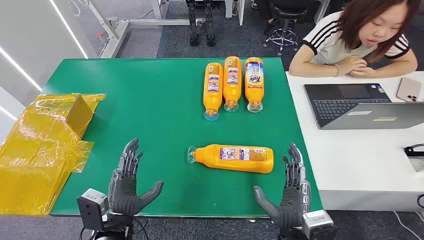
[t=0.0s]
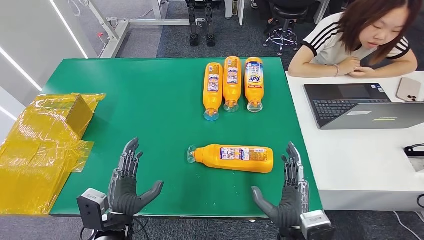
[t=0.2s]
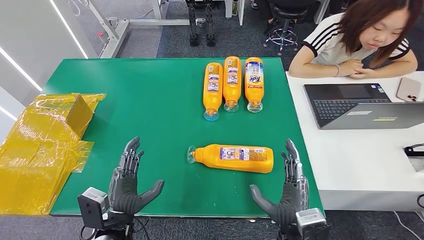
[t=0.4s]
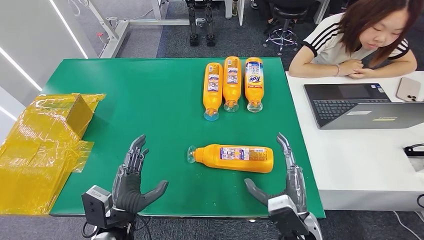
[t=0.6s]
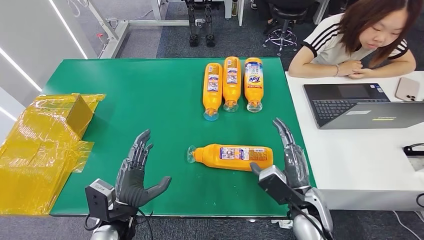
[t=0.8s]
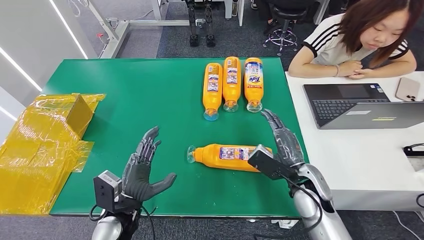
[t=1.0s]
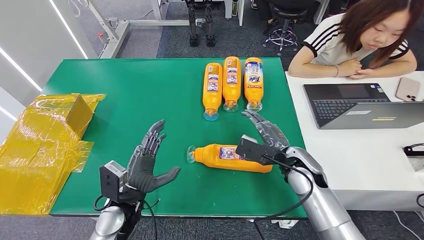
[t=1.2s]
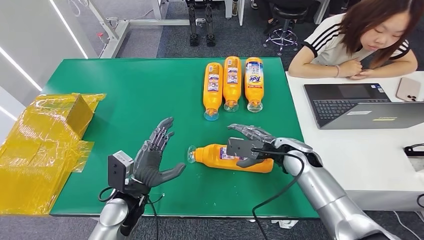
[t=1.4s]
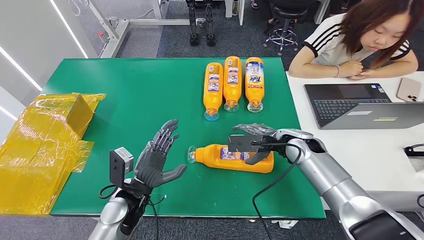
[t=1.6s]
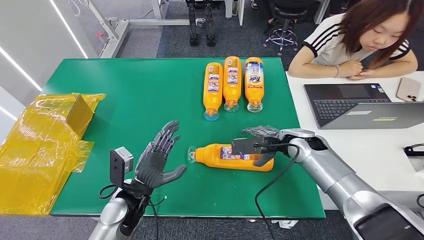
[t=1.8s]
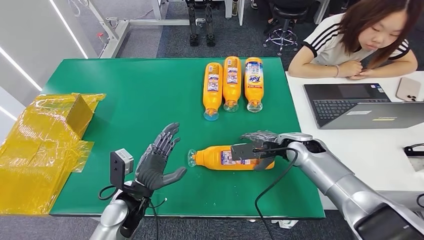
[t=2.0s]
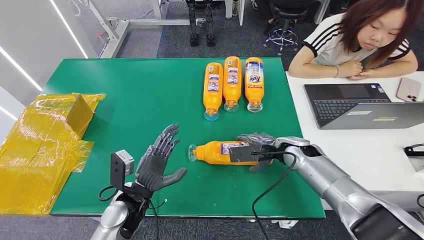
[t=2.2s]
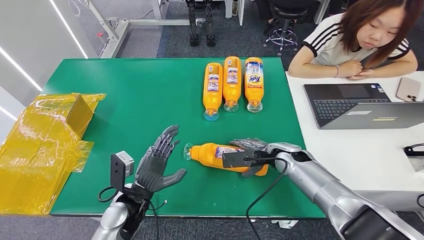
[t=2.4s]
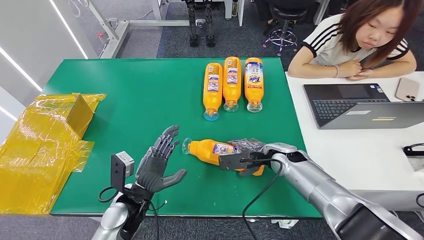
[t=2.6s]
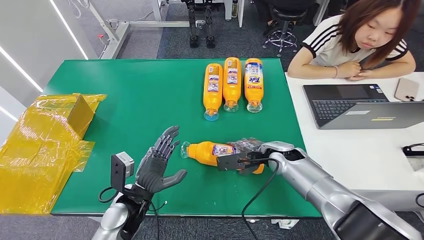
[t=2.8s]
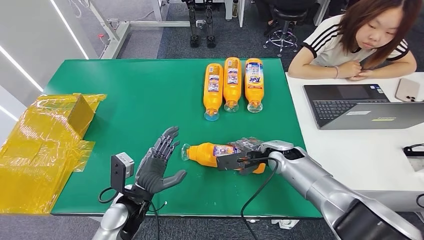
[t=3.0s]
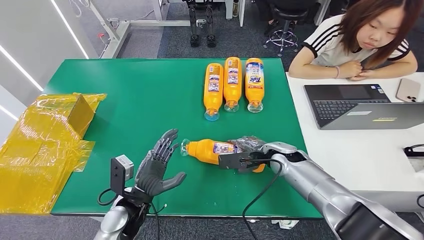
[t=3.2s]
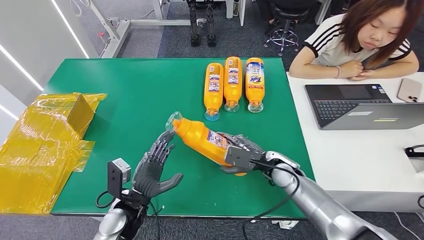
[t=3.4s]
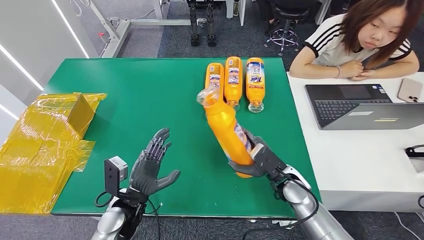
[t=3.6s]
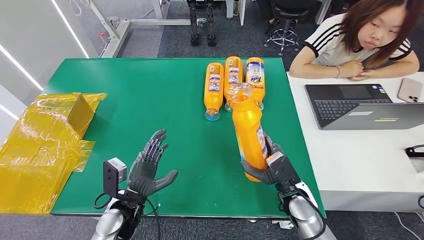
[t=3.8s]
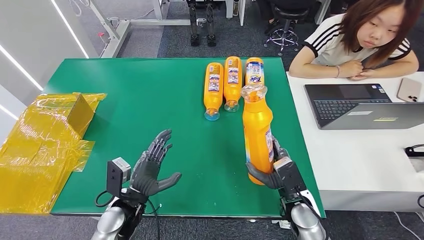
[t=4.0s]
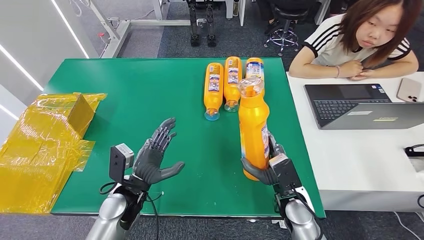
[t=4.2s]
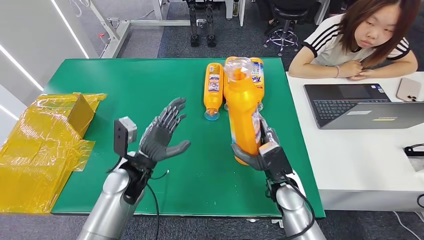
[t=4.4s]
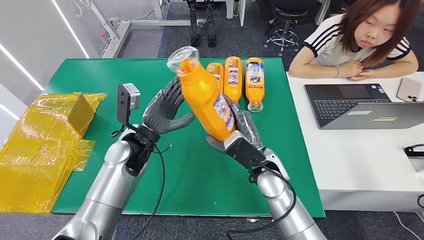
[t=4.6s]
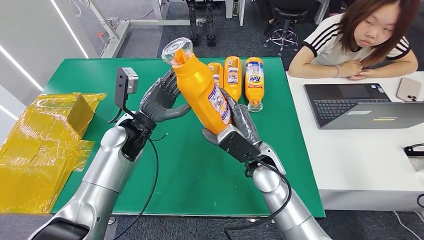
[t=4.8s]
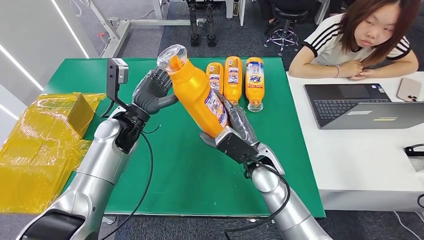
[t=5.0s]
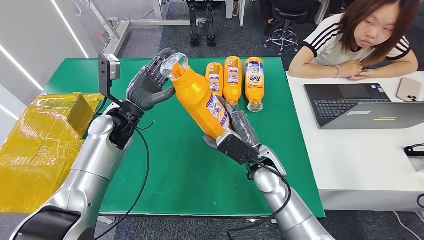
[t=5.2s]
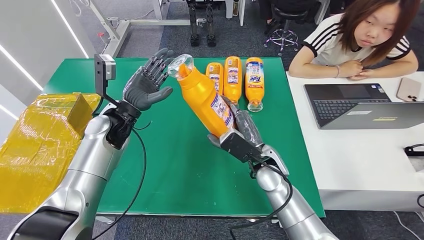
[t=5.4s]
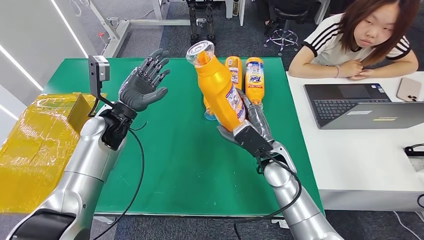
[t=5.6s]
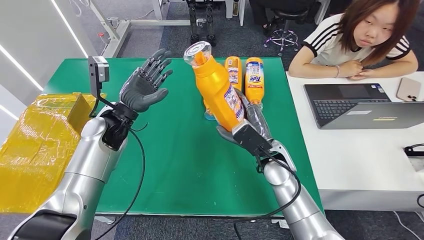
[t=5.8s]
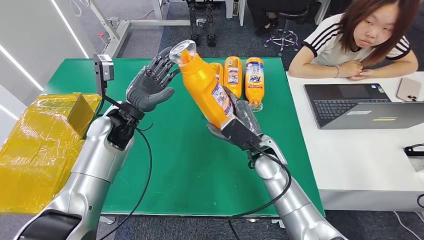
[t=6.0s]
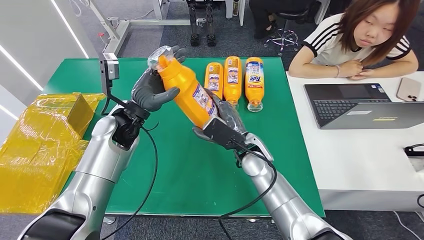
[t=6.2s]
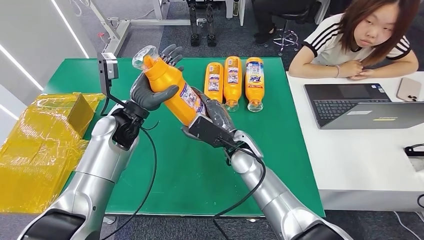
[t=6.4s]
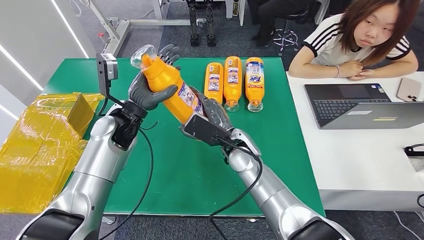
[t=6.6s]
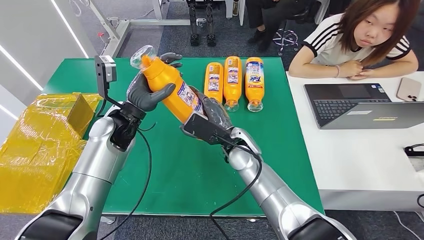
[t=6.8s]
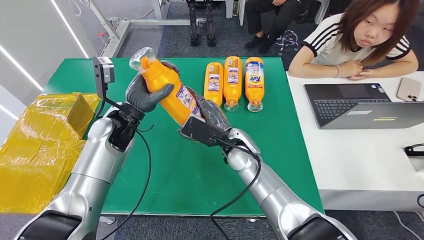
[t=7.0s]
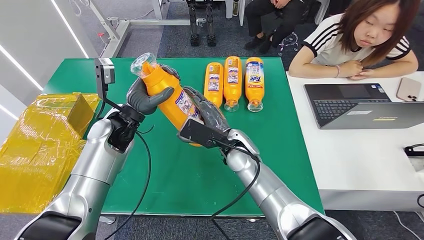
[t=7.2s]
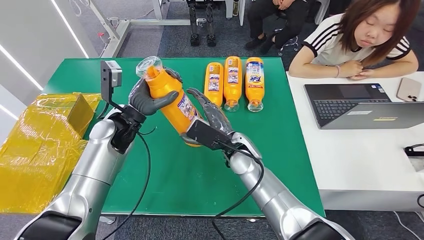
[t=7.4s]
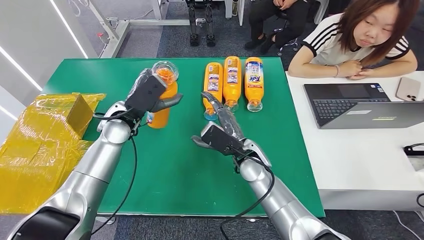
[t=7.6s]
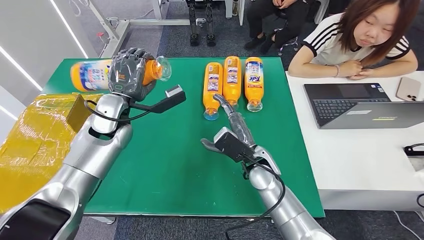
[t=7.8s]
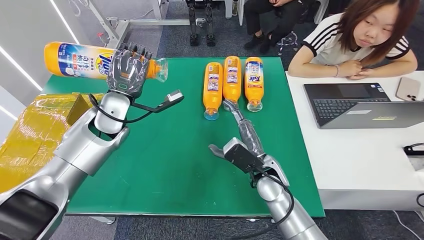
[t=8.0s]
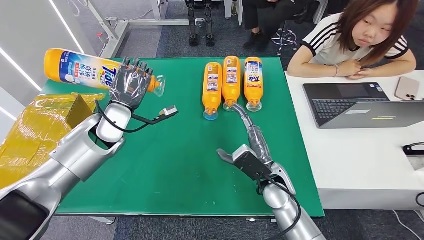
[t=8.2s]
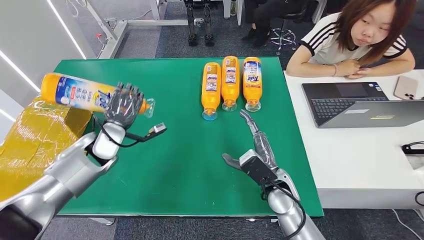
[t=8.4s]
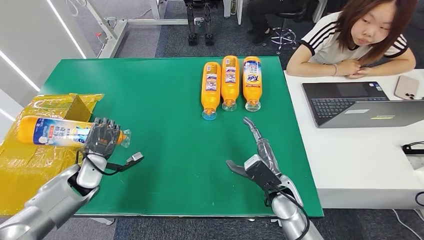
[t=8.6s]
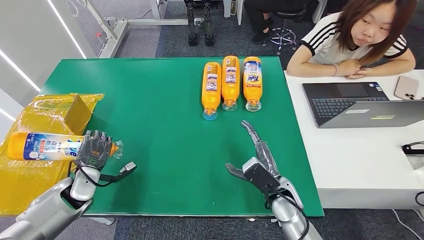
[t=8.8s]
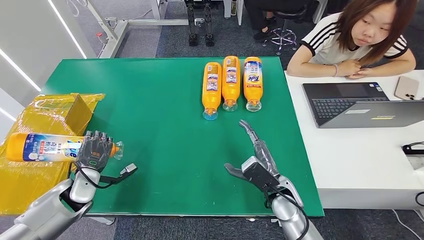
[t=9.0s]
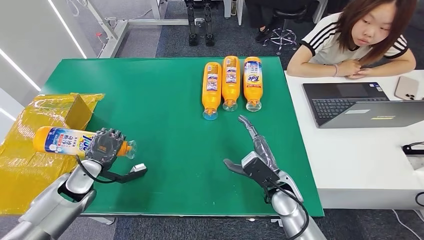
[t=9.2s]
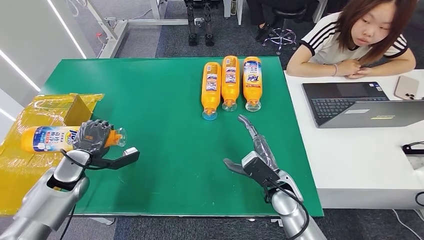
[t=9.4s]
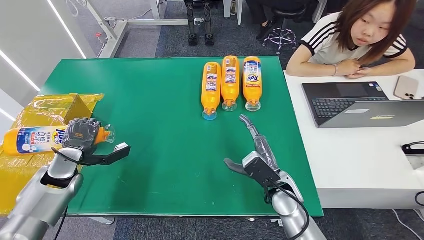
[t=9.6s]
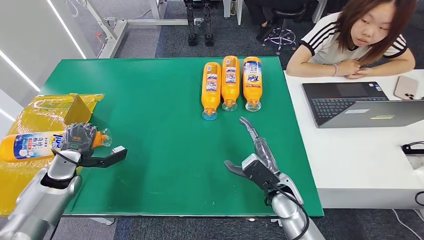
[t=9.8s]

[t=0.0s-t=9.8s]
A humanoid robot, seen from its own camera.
Step, t=0.0s to t=3.8s: Pick up the bottle from the table.
t=1.4s to t=2.8s: The right hand moves some 5 cm.
t=2.8s to t=4.2s: The right hand shifts some 10 cm backward.
t=8.4s to t=9.8s: The left hand moves to the left and downward, some 15 cm.

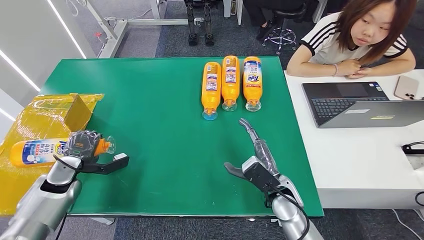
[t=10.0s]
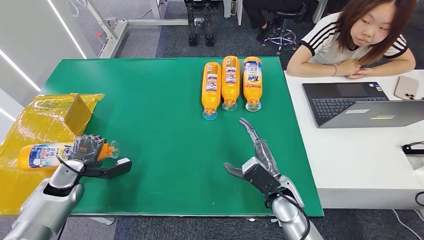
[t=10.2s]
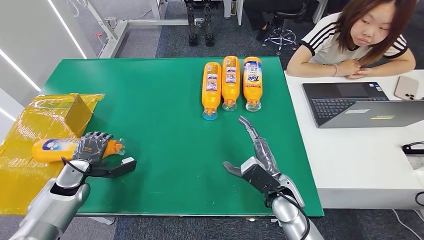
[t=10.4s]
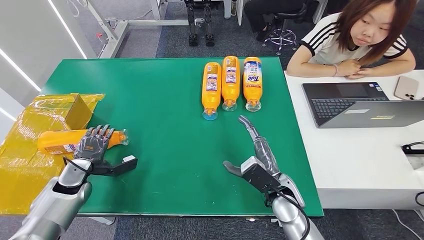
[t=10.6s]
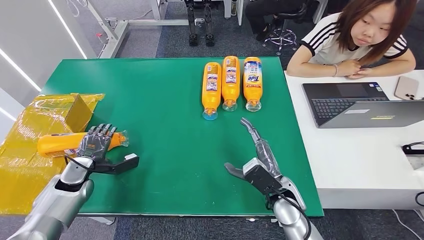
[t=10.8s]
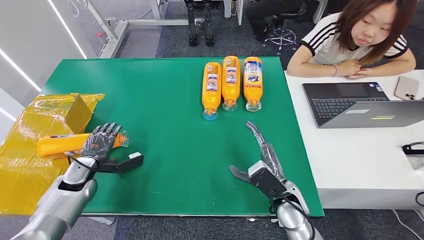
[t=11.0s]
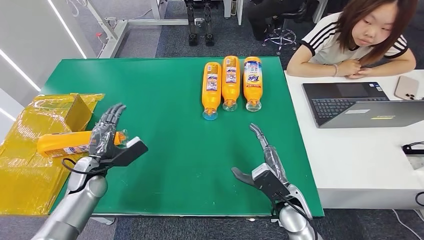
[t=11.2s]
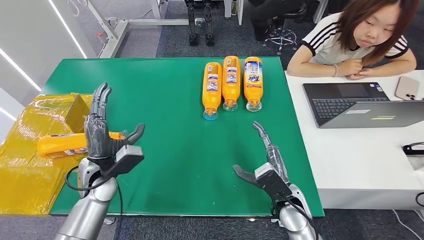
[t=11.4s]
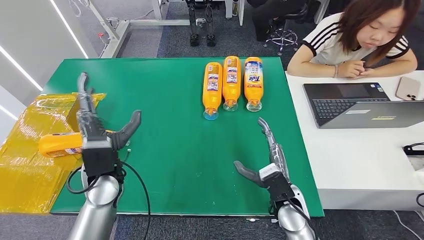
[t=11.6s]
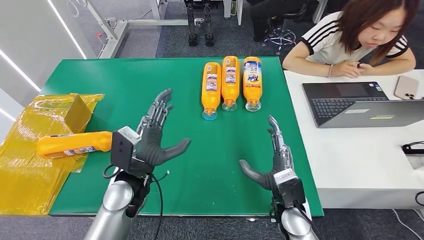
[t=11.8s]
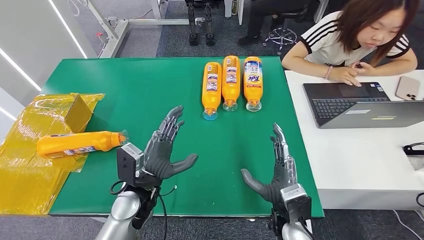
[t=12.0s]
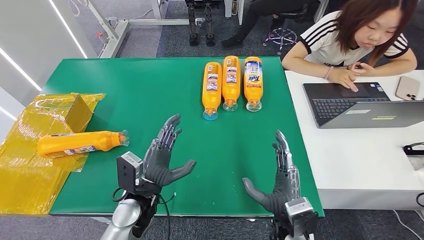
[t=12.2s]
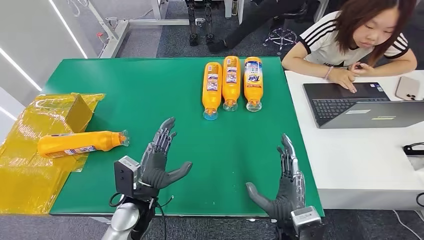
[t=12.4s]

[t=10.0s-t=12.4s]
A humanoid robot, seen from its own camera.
Step, t=10.0s to t=12.2s: Turn the bottle to the front side.
t=10.0s to t=11.2s: The left hand travels to the right by approximately 5 cm.
t=11.2s to t=12.4s: The left hand shifts roughly 20 cm to the right and backward, while the right hand goes roughly 10 cm backward.
